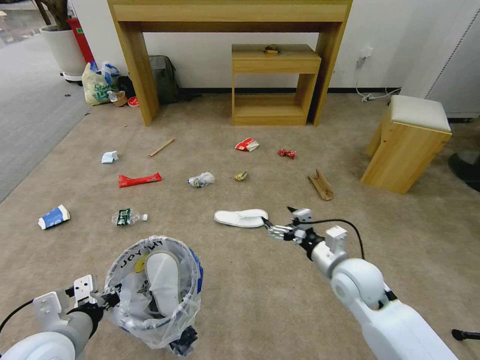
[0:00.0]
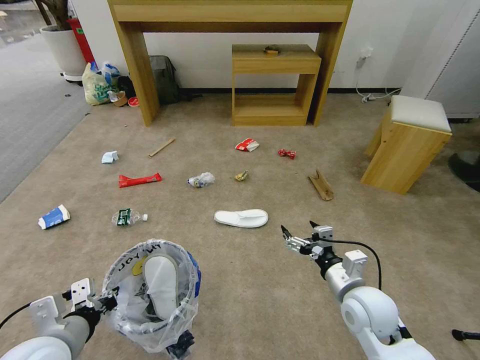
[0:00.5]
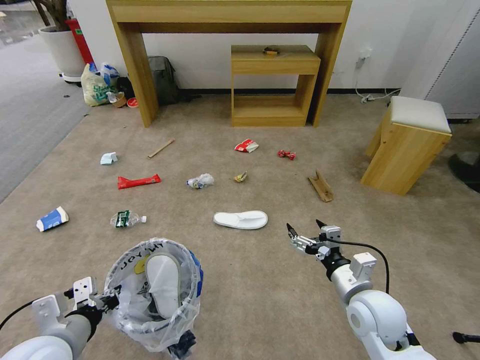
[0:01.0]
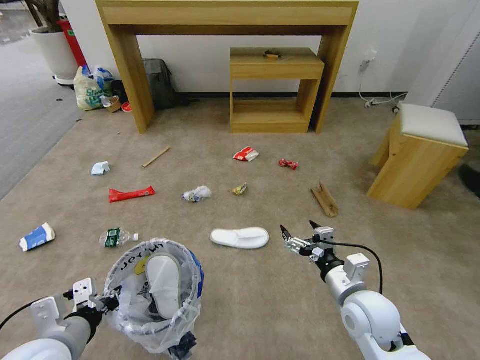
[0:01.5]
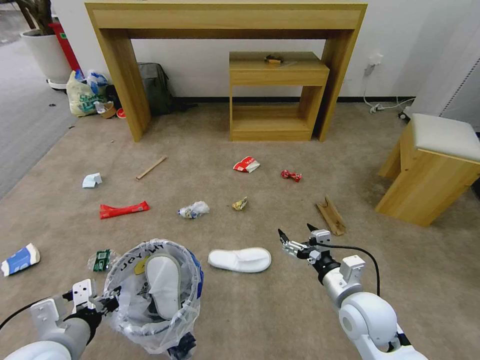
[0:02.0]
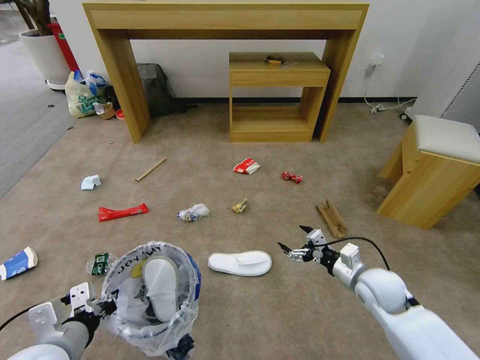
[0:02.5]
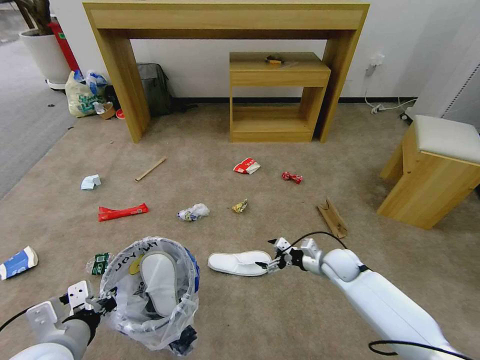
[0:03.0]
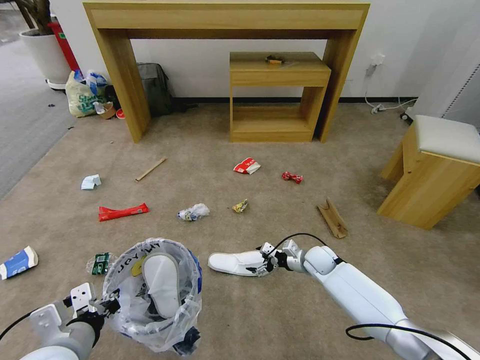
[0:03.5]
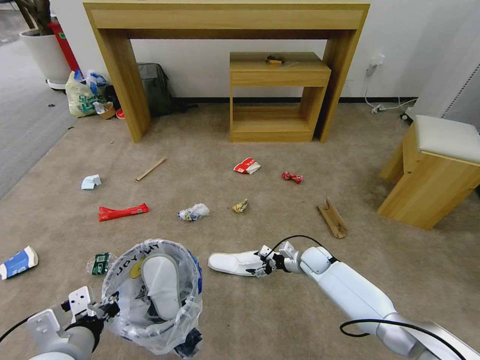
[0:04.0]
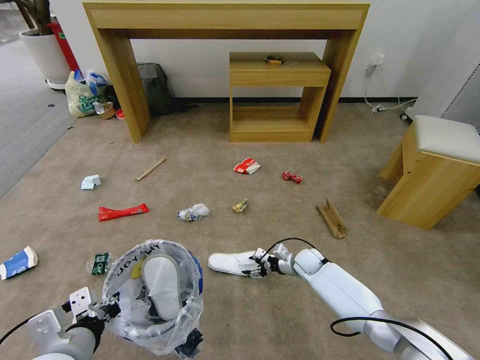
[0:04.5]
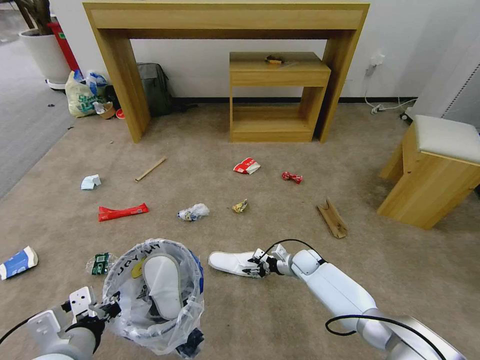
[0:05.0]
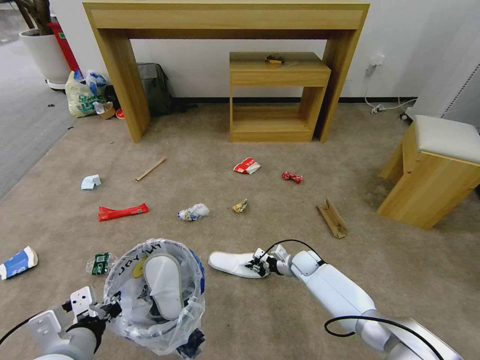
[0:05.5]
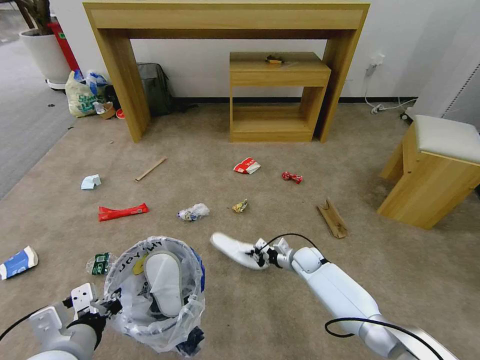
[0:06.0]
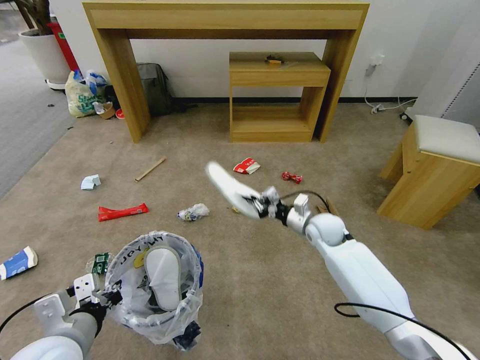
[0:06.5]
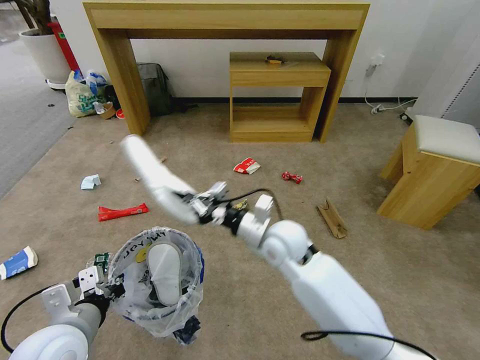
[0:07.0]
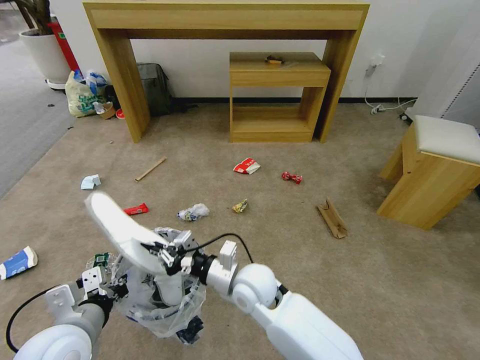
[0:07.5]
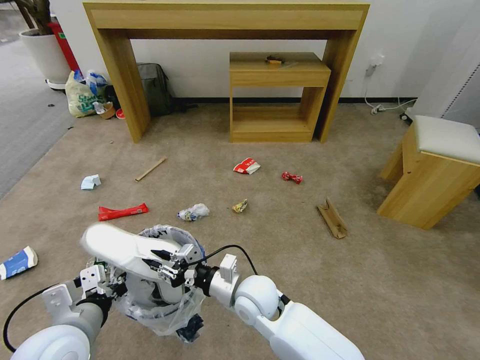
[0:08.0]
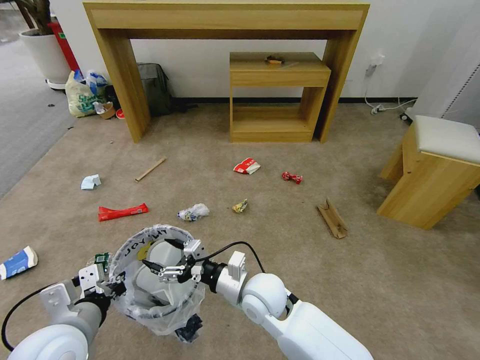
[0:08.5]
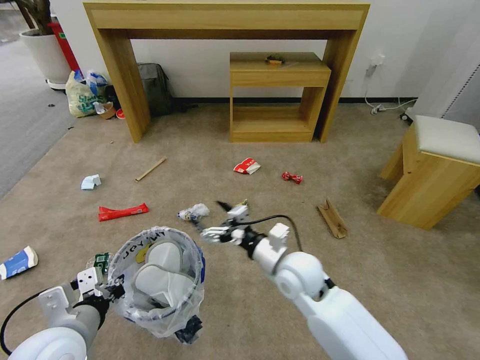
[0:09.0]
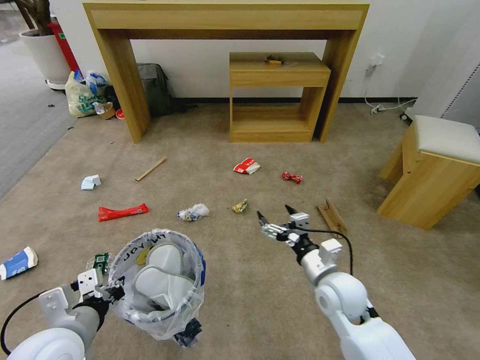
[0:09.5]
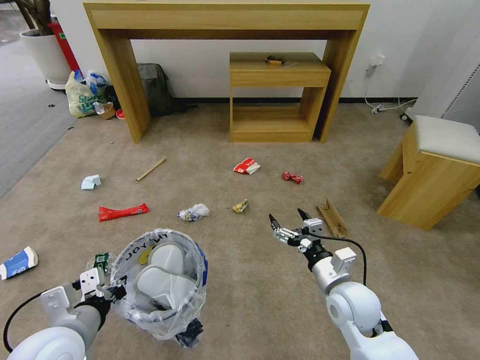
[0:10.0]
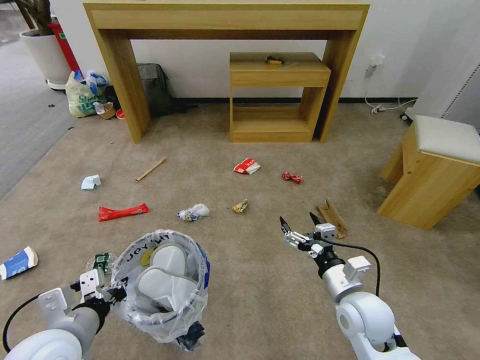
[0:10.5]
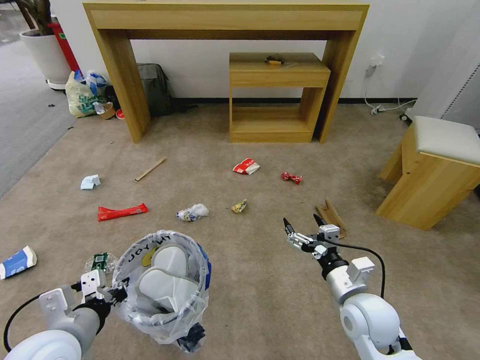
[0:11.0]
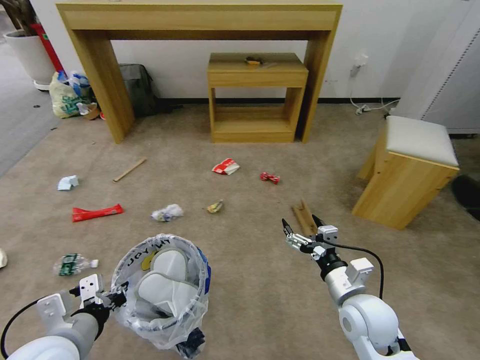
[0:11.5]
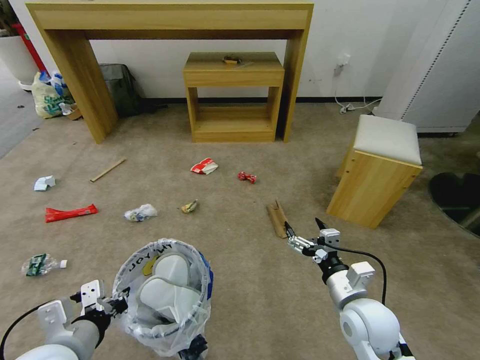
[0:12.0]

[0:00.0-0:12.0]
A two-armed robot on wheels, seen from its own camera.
Task of the whole recording: Pick up the trash bin and place the garbage on the floor into it.
0.0 to 2.0 s: The right gripper moves backward, approximately 5 cm.
2.0 to 4.0 s: The right gripper moves forward and downward, roughly 25 cm.
4.0 to 6.0 s: The right gripper closes up.
6.0 to 8.0 s: The right gripper heads to the left, backward and upward, covering some 30 cm.
8.0 to 10.0 s: The right gripper heads to the right, covering roughly 20 cm, and opens up.

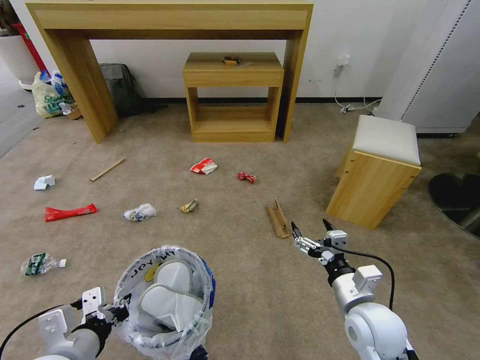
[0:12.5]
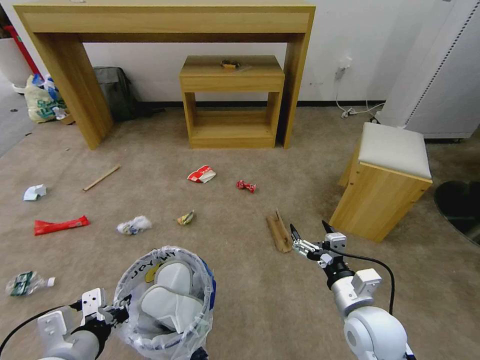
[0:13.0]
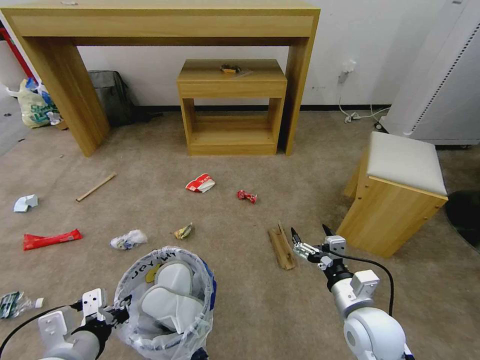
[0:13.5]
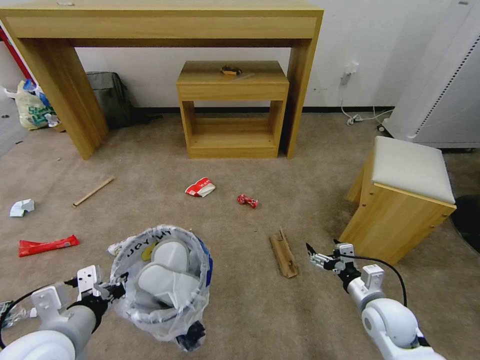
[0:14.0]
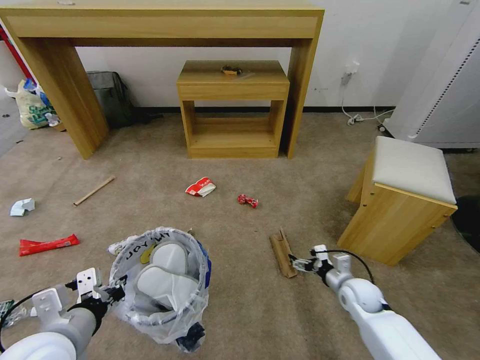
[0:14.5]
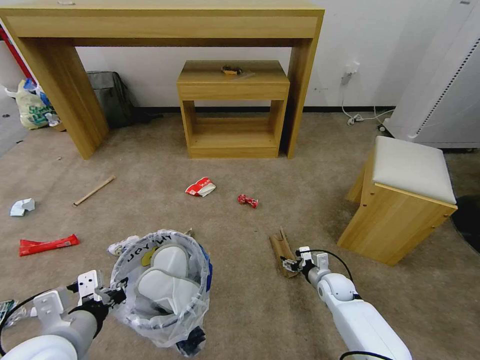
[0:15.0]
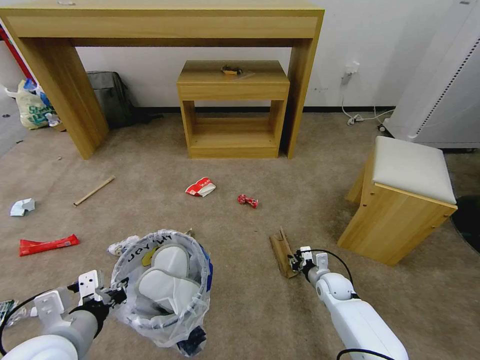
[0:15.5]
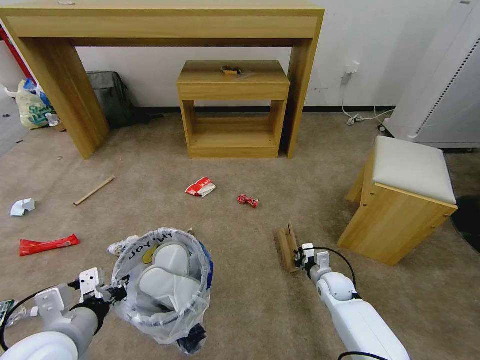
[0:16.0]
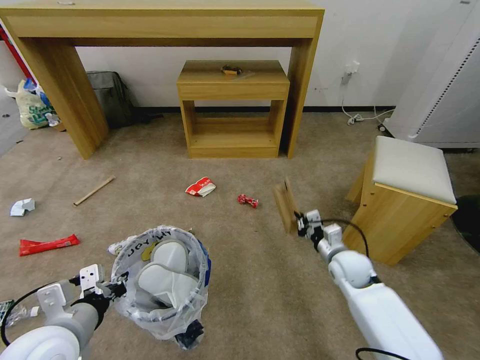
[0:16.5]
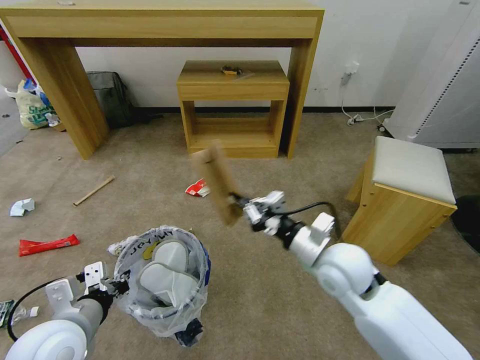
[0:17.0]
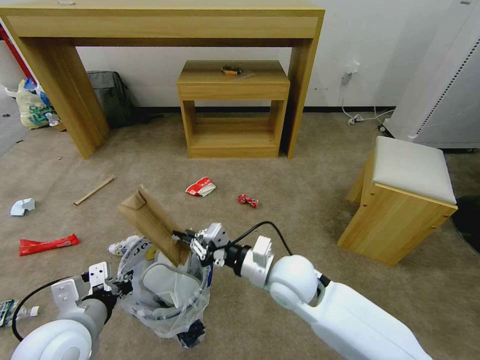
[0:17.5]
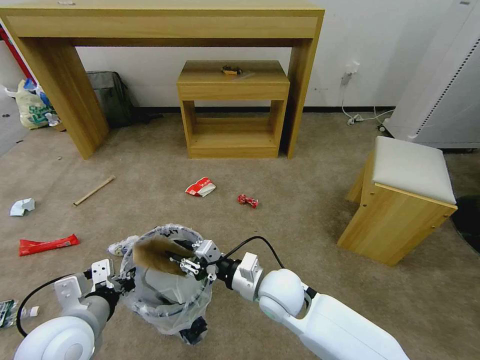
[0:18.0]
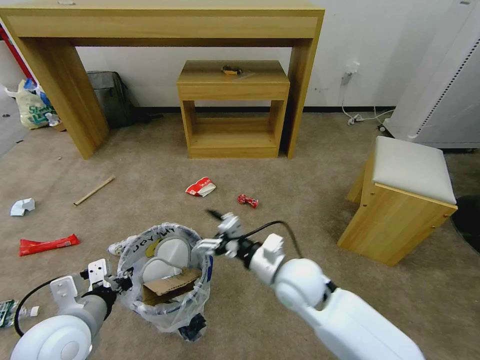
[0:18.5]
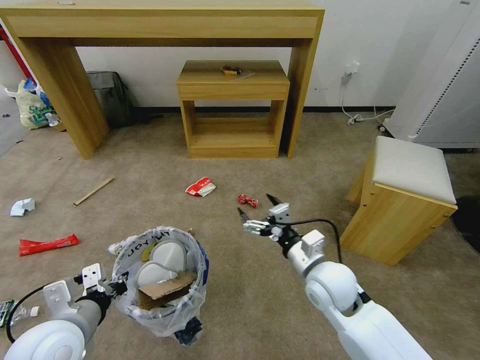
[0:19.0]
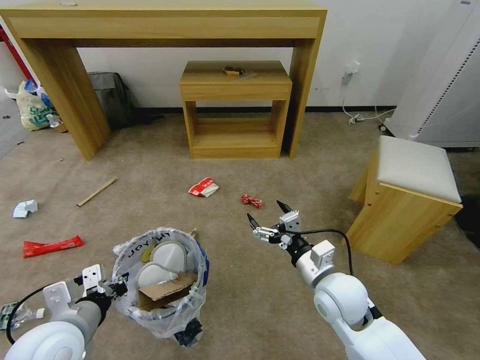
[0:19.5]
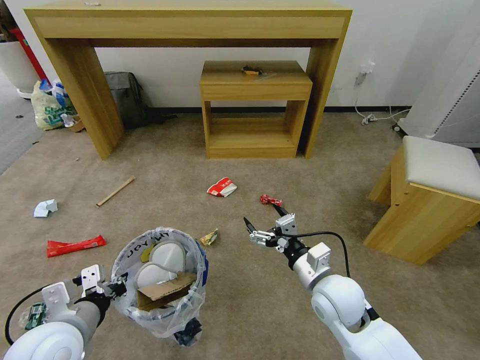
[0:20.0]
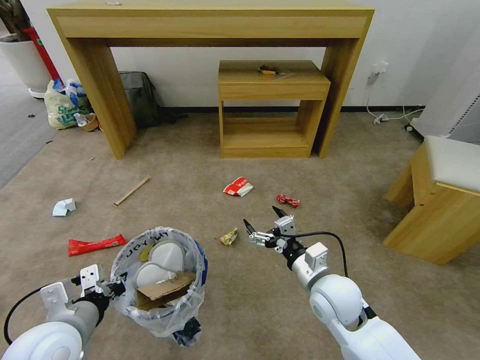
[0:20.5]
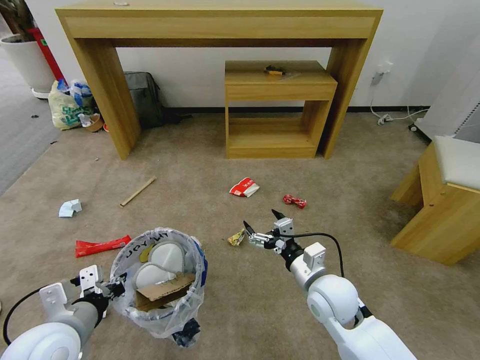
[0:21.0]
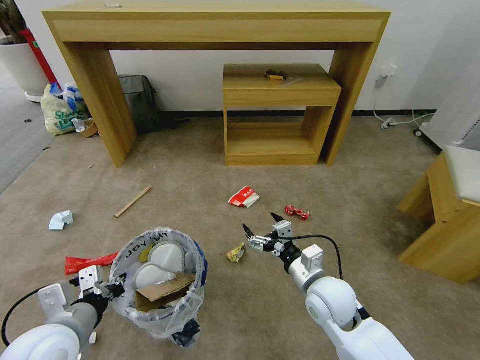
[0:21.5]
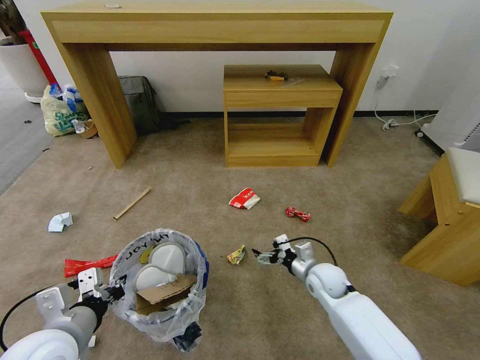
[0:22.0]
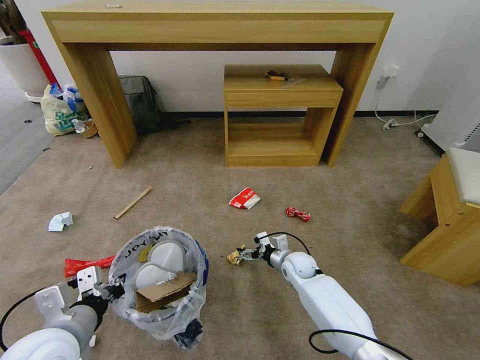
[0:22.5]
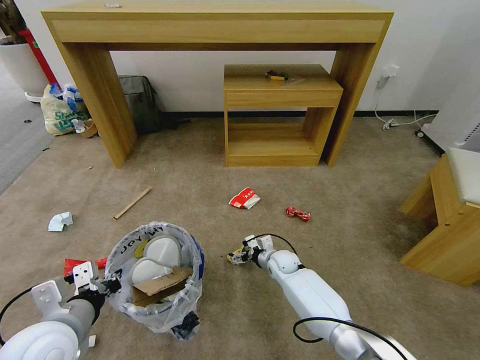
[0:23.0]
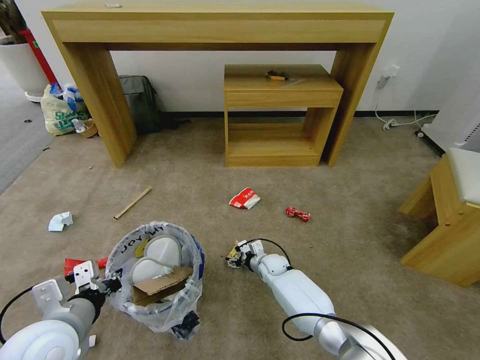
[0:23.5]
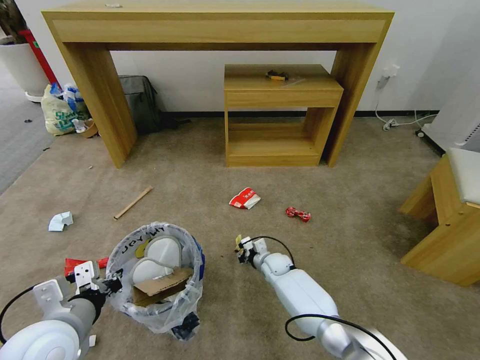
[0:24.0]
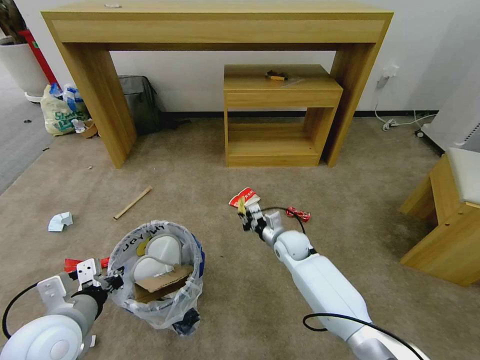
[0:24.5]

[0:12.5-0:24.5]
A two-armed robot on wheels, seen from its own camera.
Task of the whole recording: Pick up the trash bin and place the garbage on the floor into it.
12.5 to 14.5 s: The right gripper moves downward, forward and to the right, some 20 cm.
14.5 to 16.5 s: The right gripper shifts about 10 cm upward, and closes its fingers.
16.5 to 18.5 s: The right gripper shifts about 20 cm to the left, upward and backward, and opens up.
18.5 to 20.5 s: The right gripper is displaced to the right by about 5 cm.
20.5 to 22.5 s: The right gripper travels downward and forward by some 20 cm.
22.5 to 24.5 s: The right gripper closes.

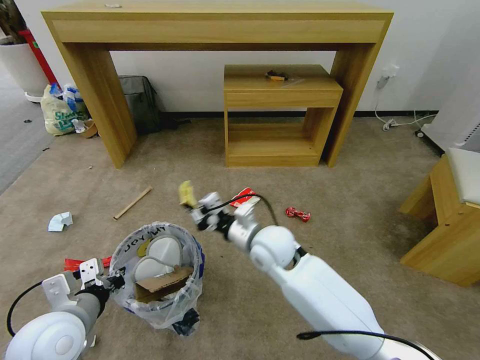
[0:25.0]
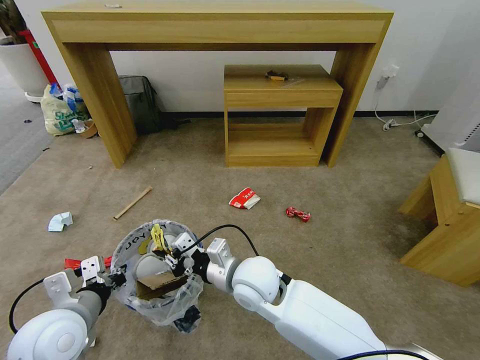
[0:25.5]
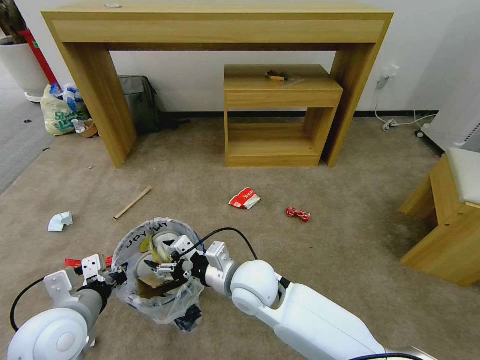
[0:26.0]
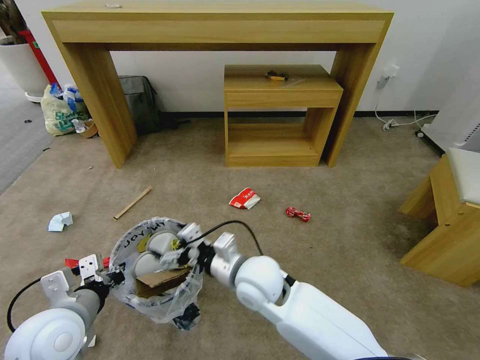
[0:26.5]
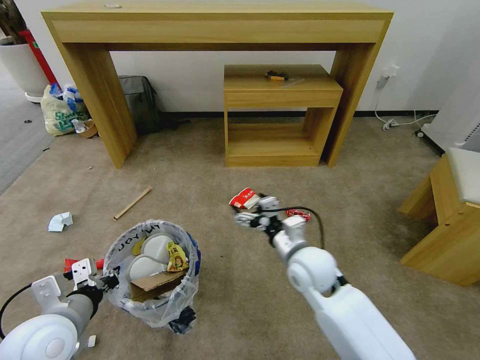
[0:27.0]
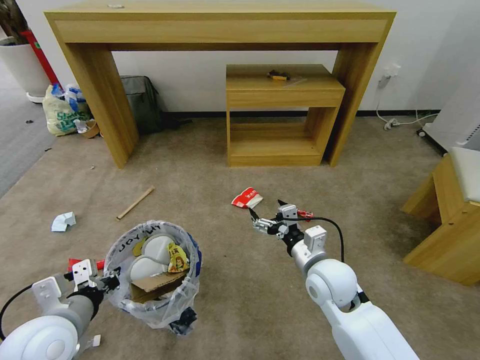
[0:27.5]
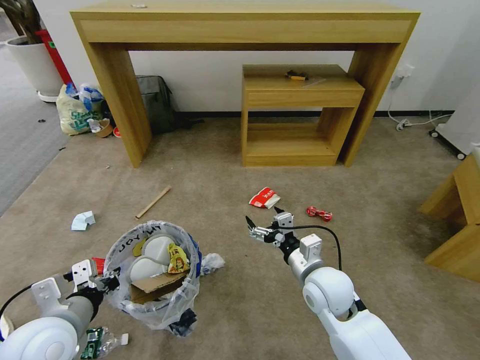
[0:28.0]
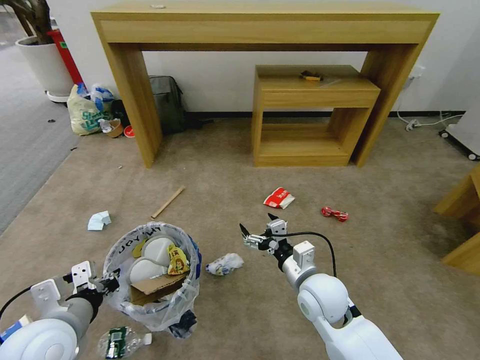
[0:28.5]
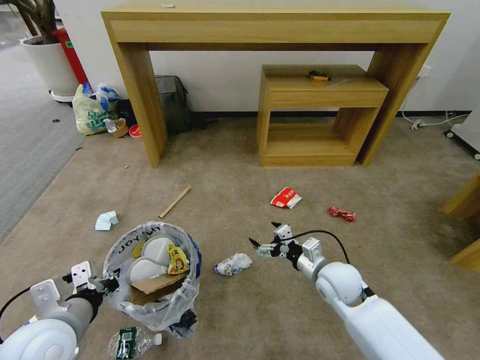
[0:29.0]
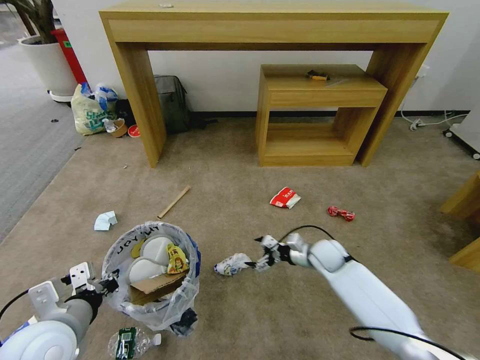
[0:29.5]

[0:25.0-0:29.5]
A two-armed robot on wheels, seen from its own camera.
Task of the whole recording: Pick up the trash bin and place the garbage on the floor into it.
25.0 to 27.0 s: The right gripper is displaced backward and to the right by about 10 cm, and opens.
27.0 to 29.5 s: The right gripper moves downward, forward and to the right, some 20 cm.
